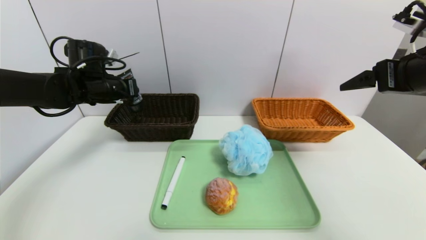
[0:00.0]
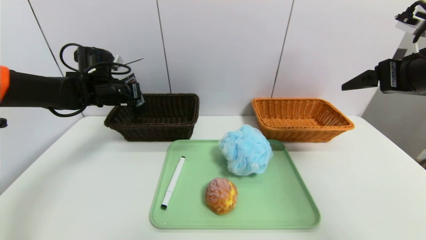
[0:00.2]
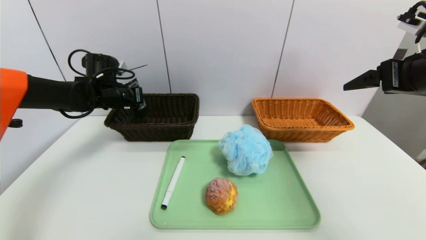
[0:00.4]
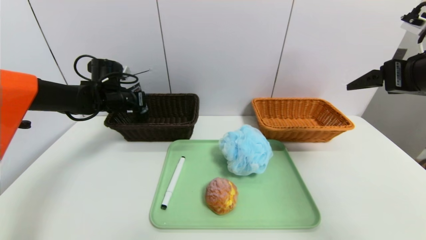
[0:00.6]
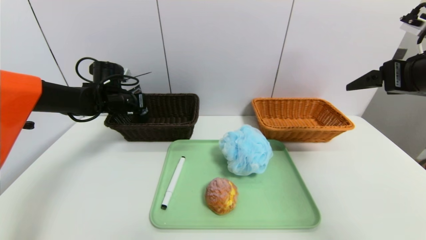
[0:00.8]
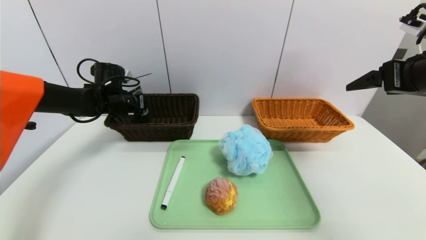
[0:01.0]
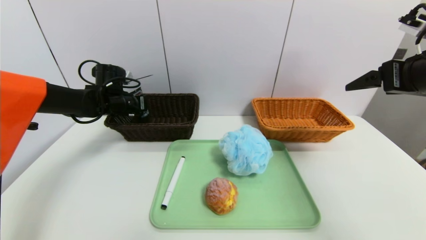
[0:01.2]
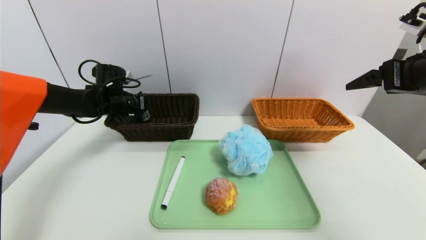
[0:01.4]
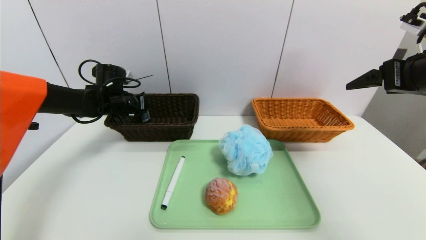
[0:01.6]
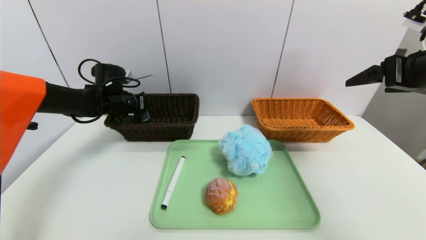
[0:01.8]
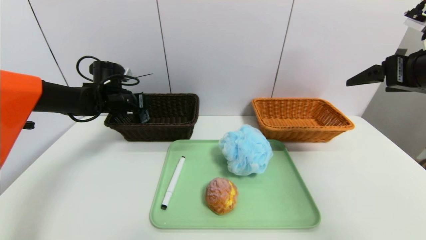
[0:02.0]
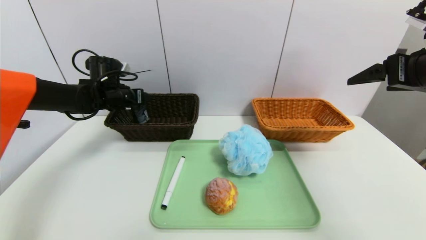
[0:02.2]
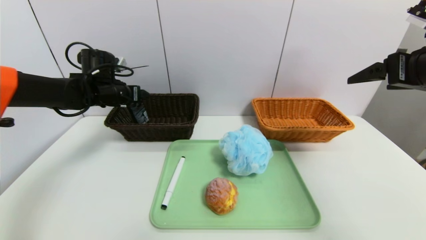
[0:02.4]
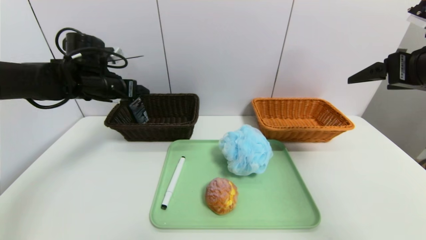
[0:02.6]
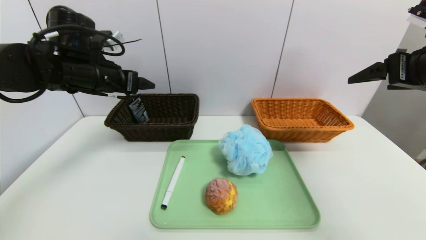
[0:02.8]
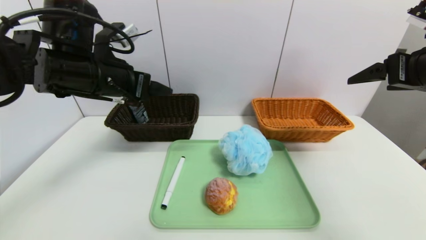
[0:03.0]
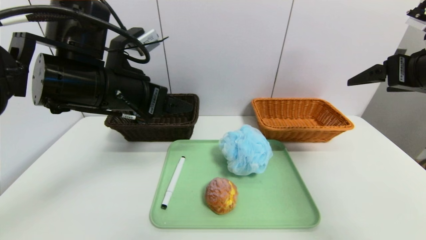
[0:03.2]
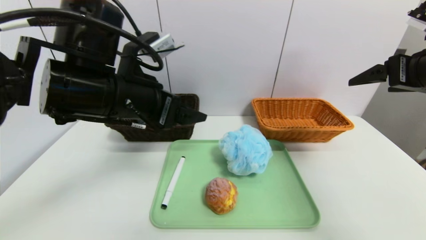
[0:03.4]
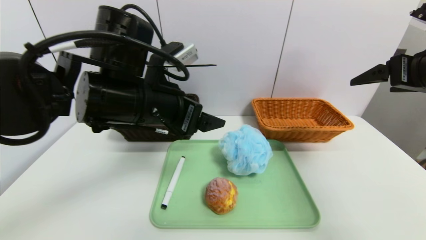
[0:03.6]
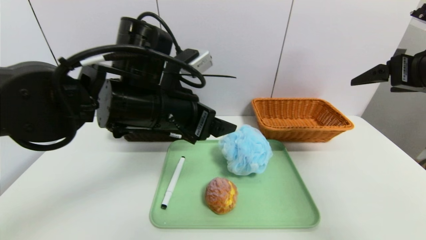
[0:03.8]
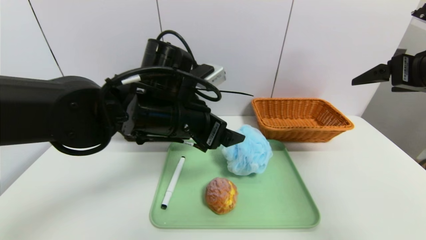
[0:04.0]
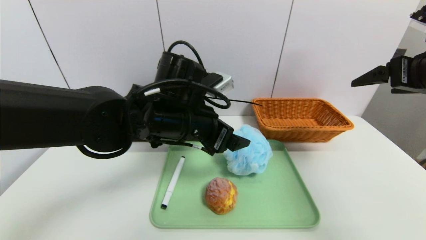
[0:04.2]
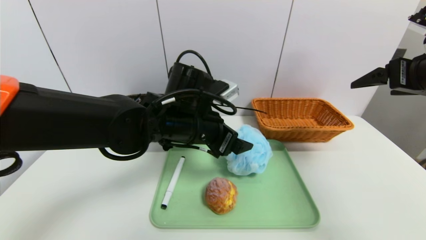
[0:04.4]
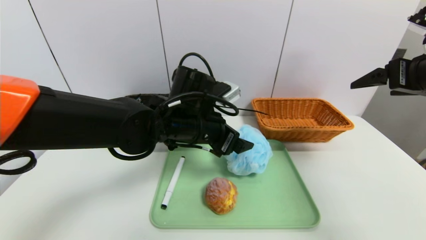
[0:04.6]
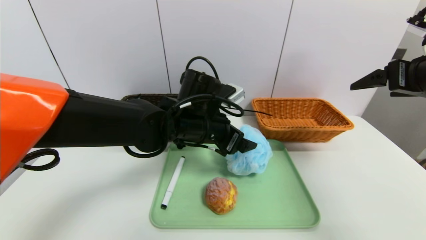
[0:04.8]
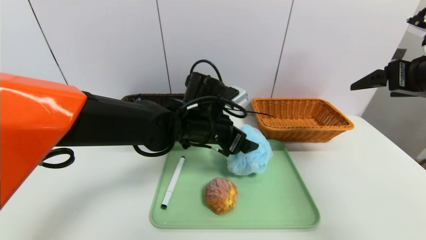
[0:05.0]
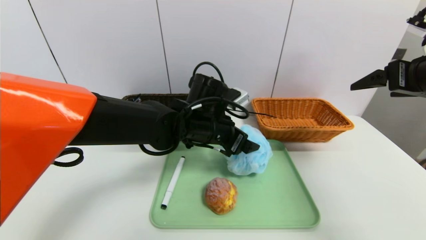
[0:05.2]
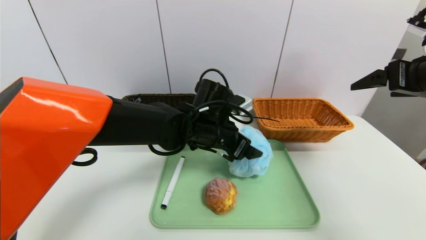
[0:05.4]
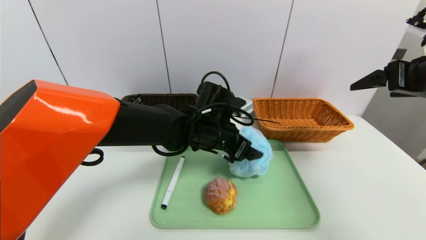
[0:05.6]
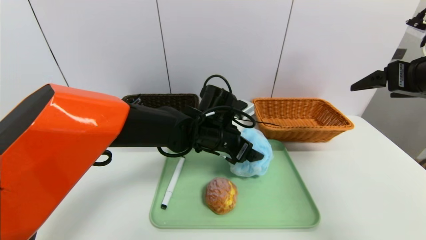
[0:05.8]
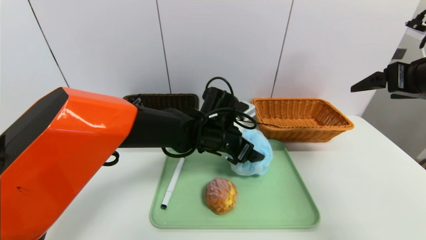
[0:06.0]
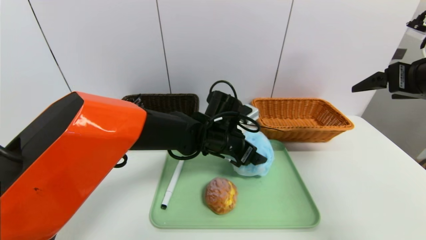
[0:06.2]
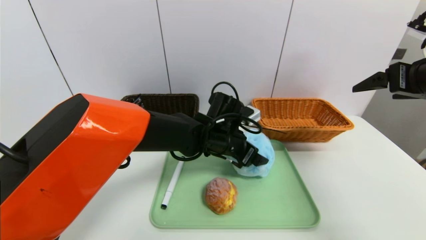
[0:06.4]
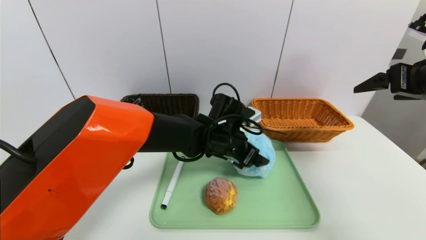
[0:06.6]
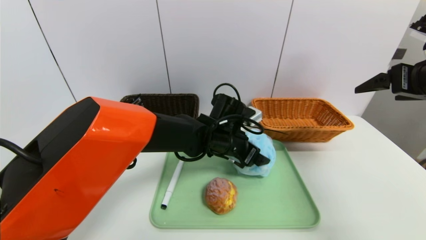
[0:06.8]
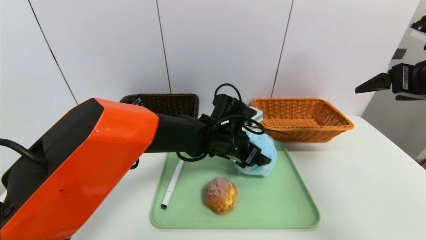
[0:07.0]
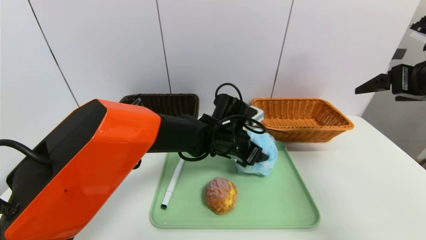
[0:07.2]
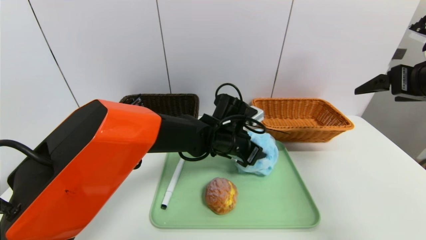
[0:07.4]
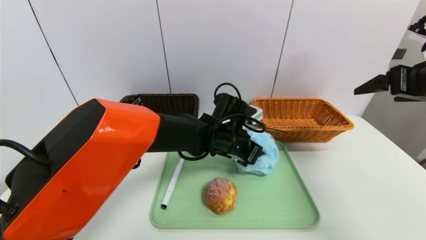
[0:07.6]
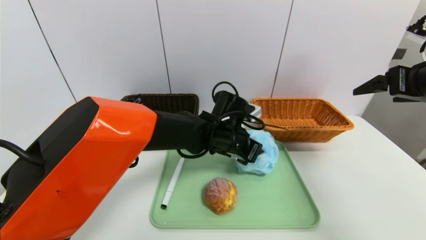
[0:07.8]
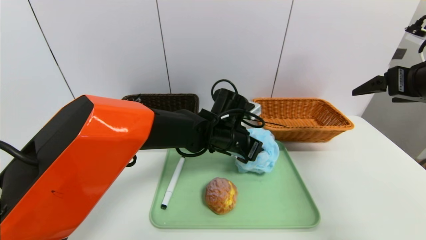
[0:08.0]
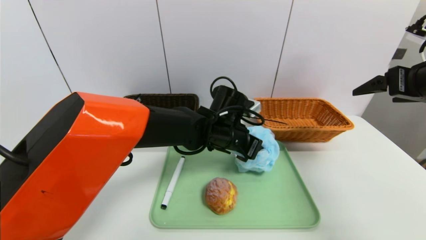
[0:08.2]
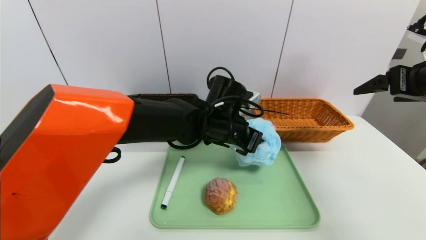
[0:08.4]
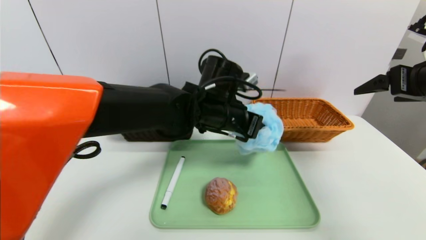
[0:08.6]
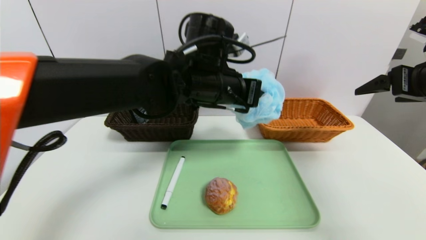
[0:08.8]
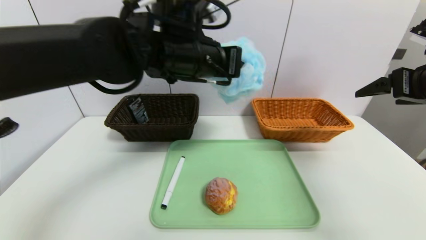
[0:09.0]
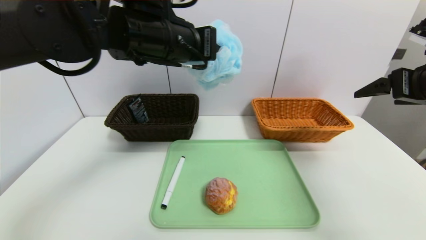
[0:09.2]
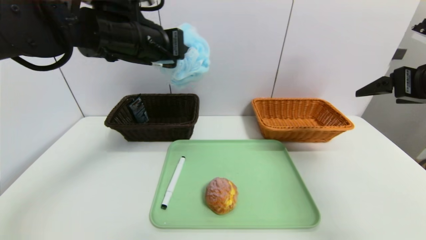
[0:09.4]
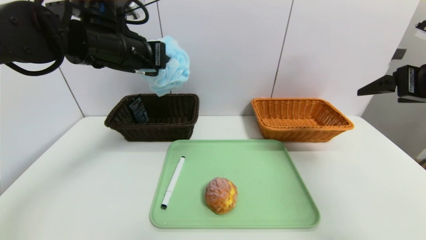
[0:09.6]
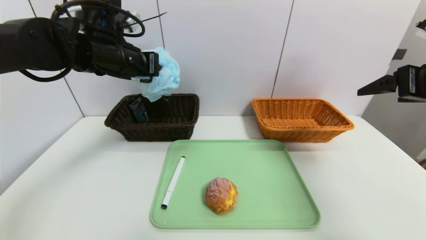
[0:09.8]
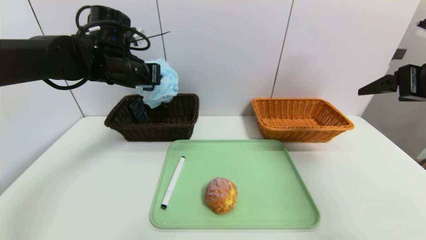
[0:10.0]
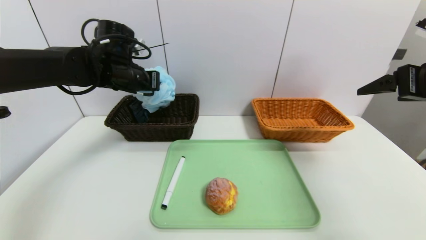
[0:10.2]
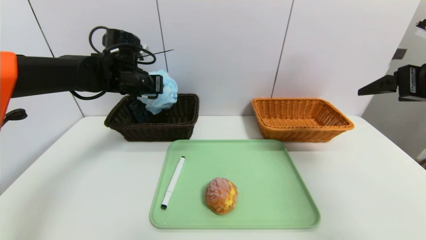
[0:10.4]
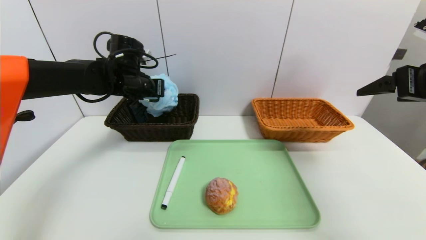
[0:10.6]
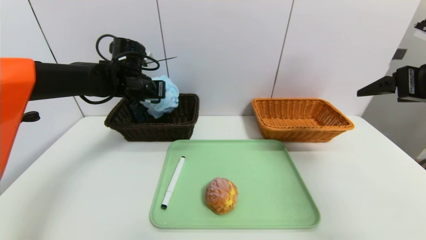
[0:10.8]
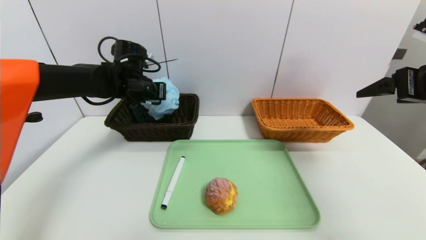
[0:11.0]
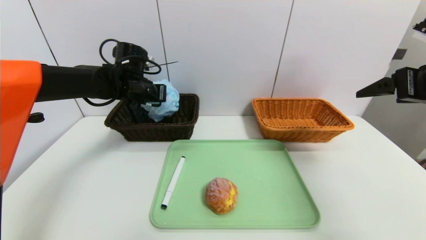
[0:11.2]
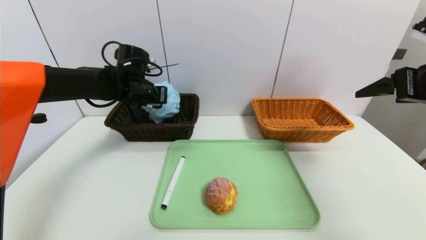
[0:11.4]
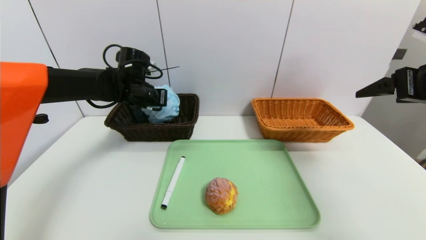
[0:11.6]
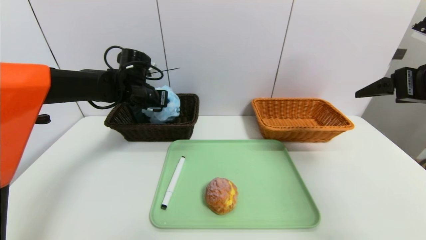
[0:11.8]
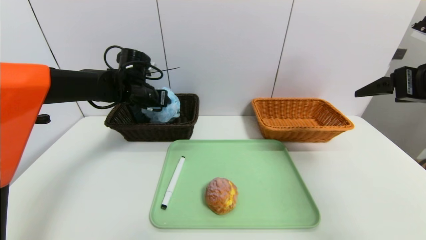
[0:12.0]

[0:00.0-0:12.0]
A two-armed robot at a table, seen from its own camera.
Task of the whole recording: place the food in the right basket with the right gripper, and place the non food items in the left basket with the left gripper.
Step, 0:00.0 to 0:02.0: Grasp the soft cleanser and put it in the left basket.
0:00.0 to 0:01.6: The left gripper goes about 10 cm downward and forward, and opens.
0:01.6 to 0:03.0: The left gripper moves backward, upward and to the right, roughly 20 cm, and opens up.
0:03.0 to 0:04.4: The left gripper is displaced to the right and downward by some 15 cm.
0:04.4 to 0:06.0: The left gripper goes approximately 10 cm downward, to the right and forward.
0:06.0 to 0:07.6: The left gripper closes.
0:07.6 to 0:09.0: The left gripper heads upward and to the left, covering roughly 20 cm.
0:09.0 to 0:10.4: The left gripper is displaced to the left, forward and downward by approximately 20 cm.
0:10.4 to 0:12.0: The left gripper opens.

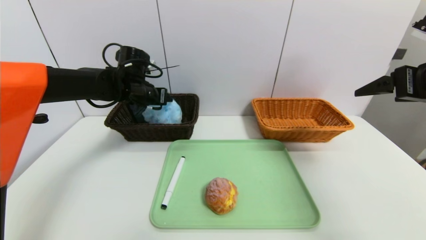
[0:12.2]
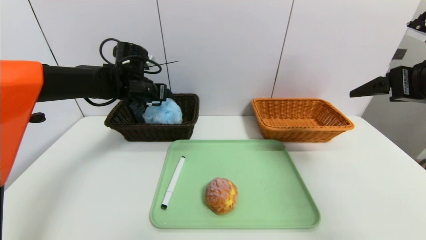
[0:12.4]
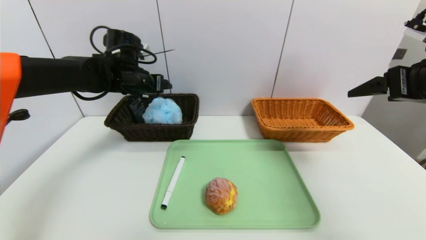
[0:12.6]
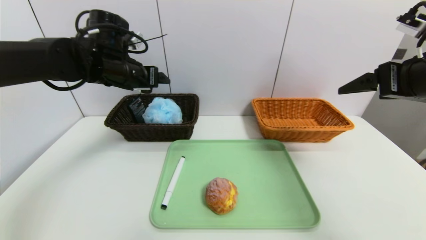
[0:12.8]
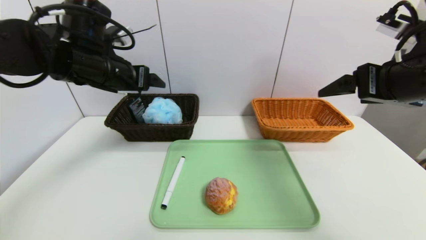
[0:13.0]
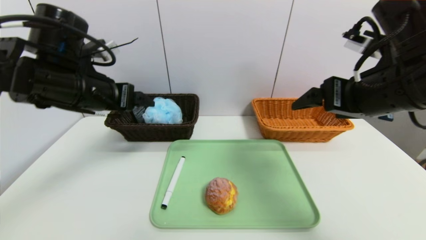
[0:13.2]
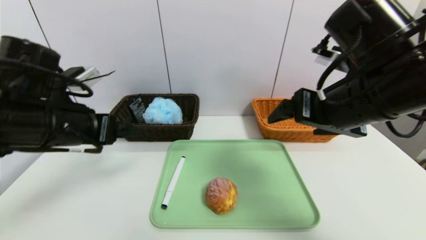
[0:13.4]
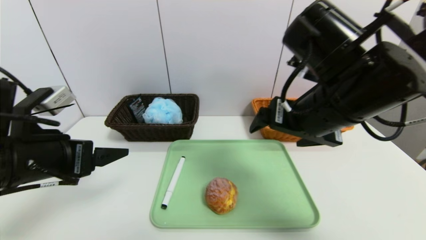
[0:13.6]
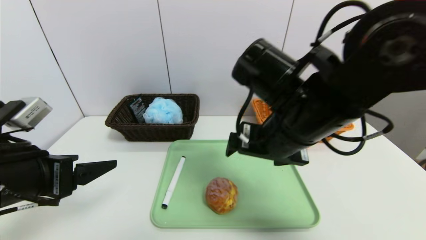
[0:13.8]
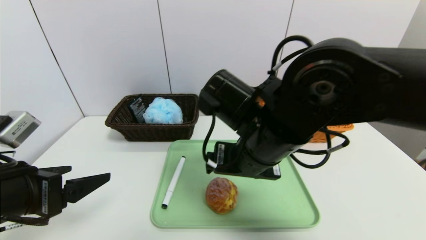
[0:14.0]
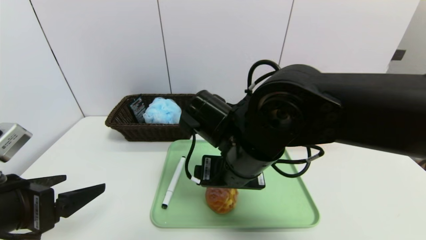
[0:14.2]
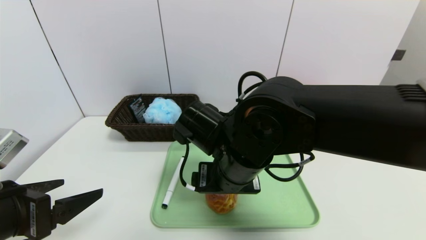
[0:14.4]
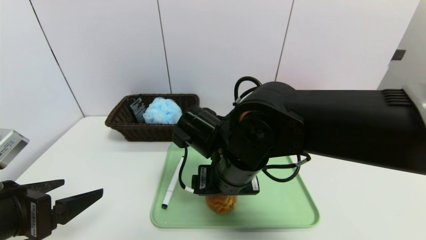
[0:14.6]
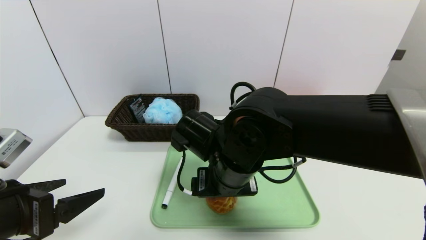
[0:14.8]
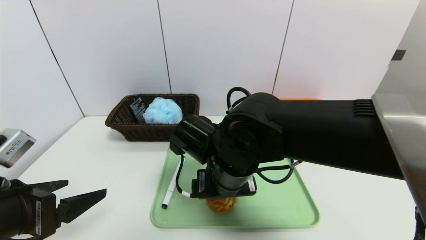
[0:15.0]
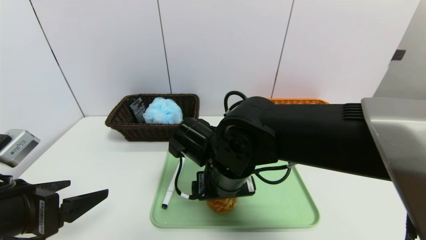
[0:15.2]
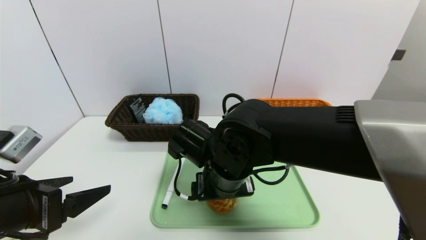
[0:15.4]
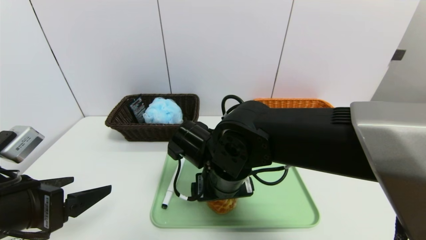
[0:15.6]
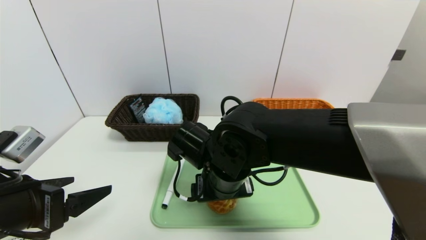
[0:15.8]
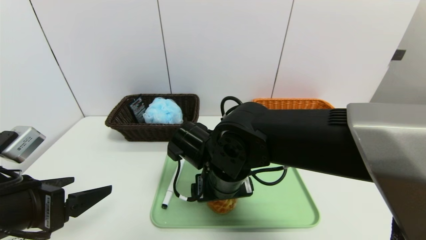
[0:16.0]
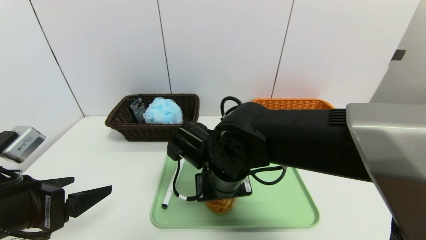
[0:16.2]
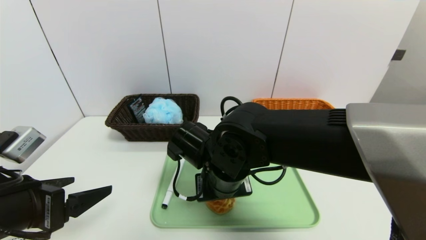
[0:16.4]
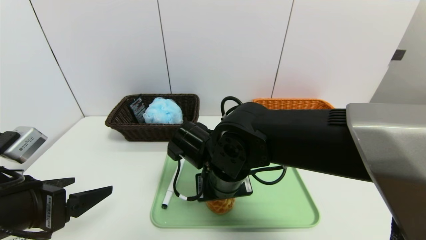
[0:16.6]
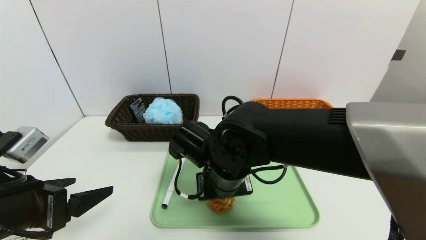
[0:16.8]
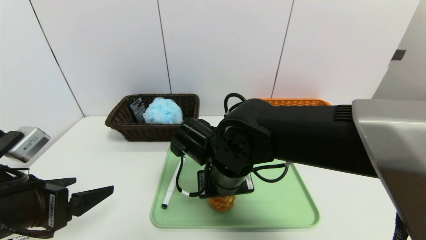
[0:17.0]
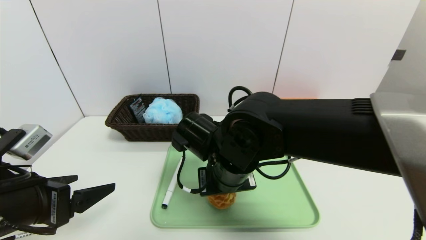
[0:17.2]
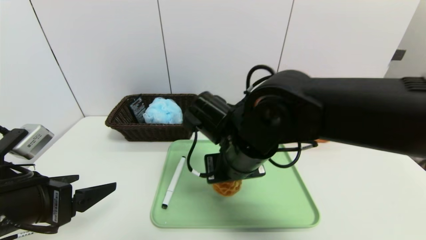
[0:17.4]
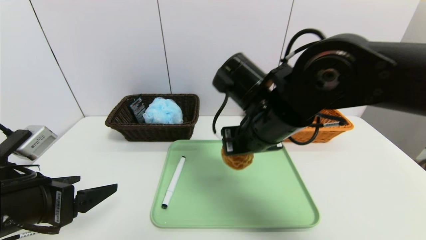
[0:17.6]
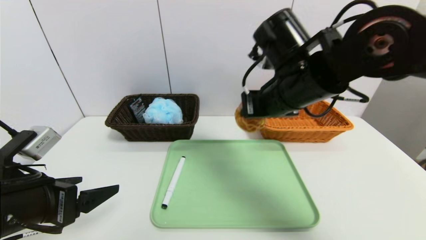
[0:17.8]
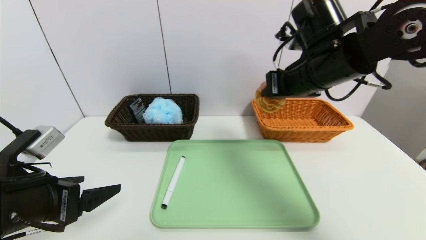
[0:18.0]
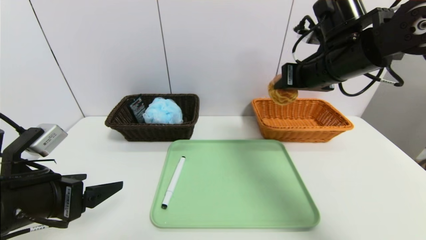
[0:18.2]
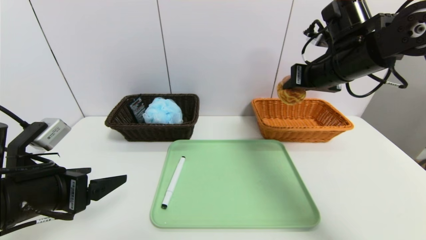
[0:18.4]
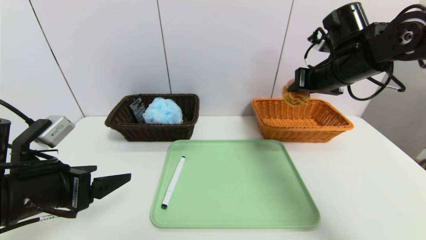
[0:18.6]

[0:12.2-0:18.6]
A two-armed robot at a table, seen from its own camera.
Task of the whole recording: place the food in the right basket with the right gripper, and place the non food items in the left basket with the left gripper.
0:12.2 to 0:13.8: The right gripper is displaced to the left by roughly 25 cm. The left gripper travels backward by about 30 cm.
0:13.8 to 0:15.4: The right gripper shifts some 10 cm downward and to the left.
0:15.4 to 0:17.0: The right gripper closes its fingers.
0:17.0 to 0:18.6: The right gripper travels to the right, upward and forward by approximately 30 cm.
